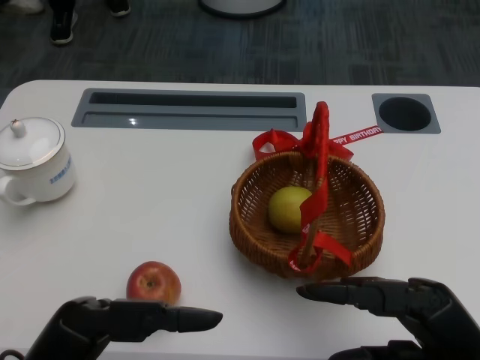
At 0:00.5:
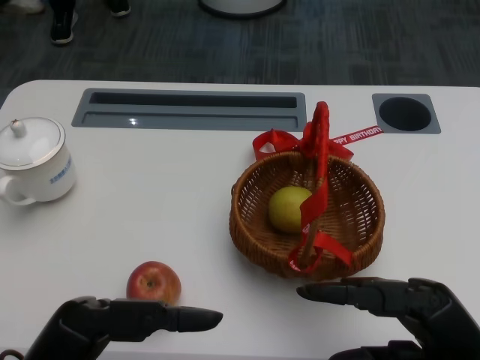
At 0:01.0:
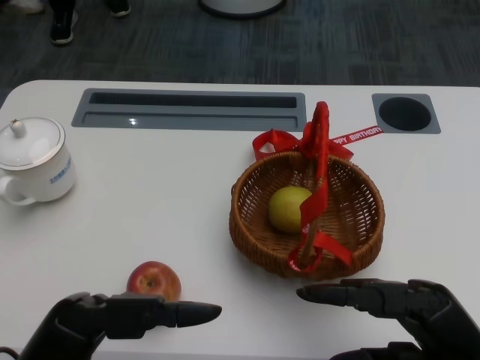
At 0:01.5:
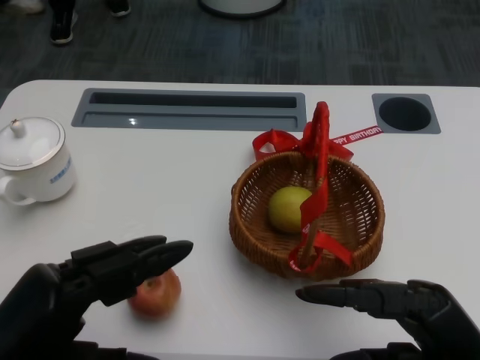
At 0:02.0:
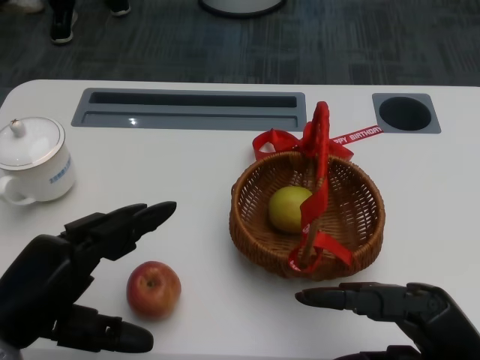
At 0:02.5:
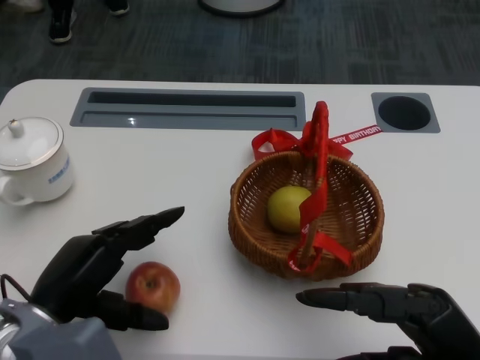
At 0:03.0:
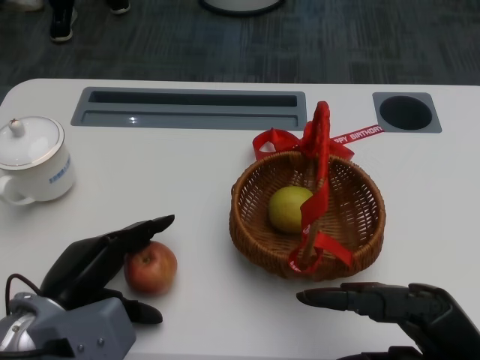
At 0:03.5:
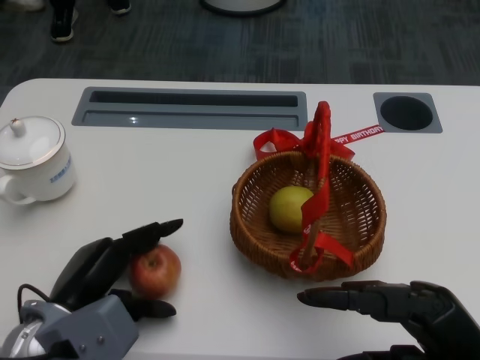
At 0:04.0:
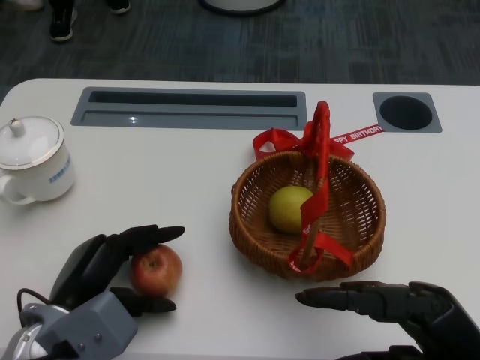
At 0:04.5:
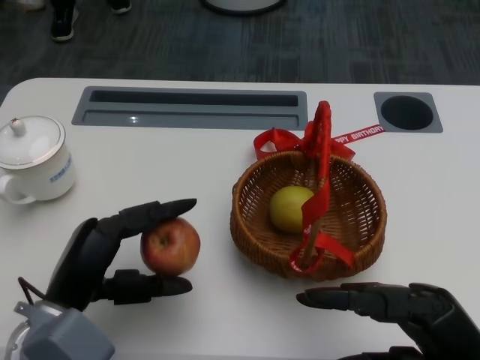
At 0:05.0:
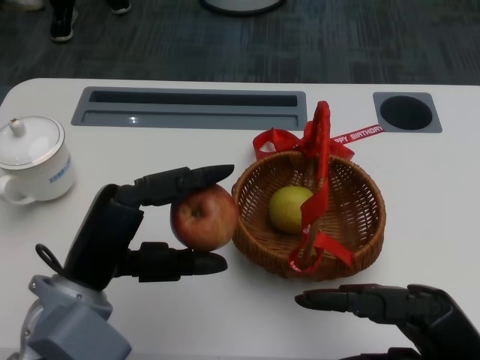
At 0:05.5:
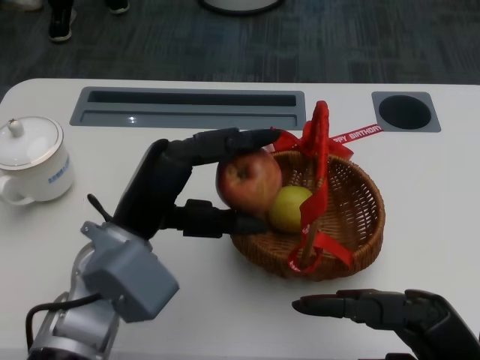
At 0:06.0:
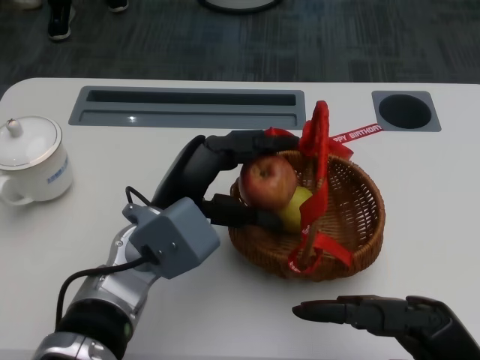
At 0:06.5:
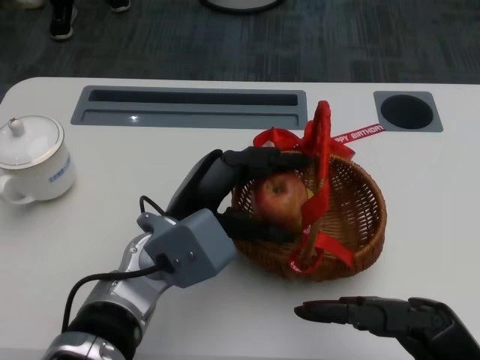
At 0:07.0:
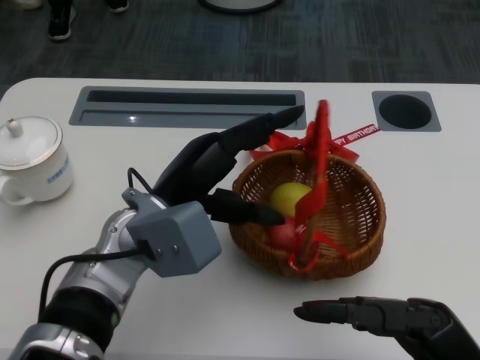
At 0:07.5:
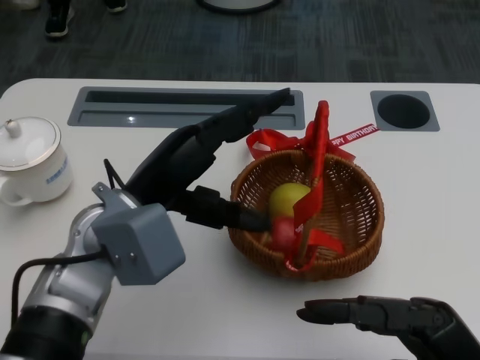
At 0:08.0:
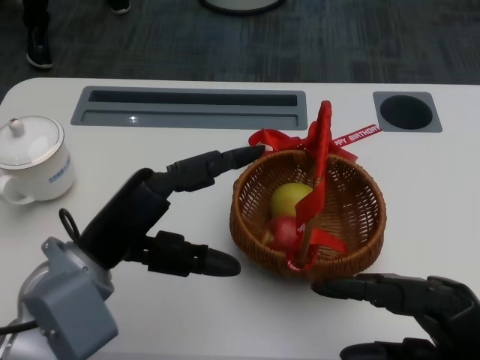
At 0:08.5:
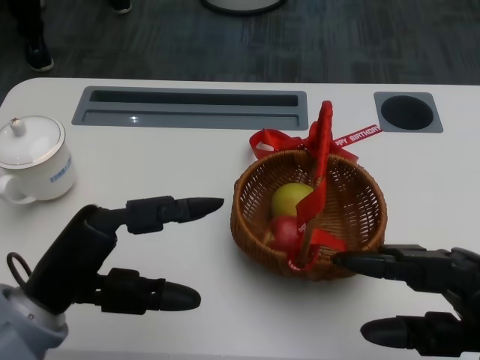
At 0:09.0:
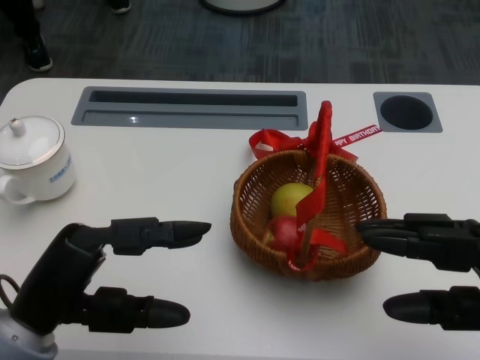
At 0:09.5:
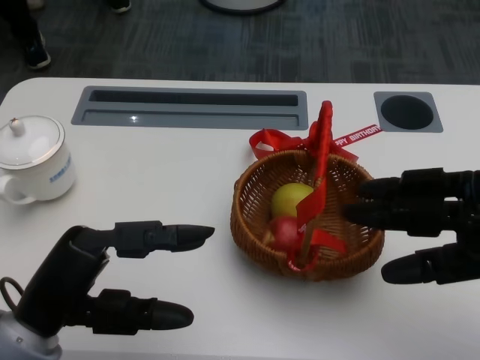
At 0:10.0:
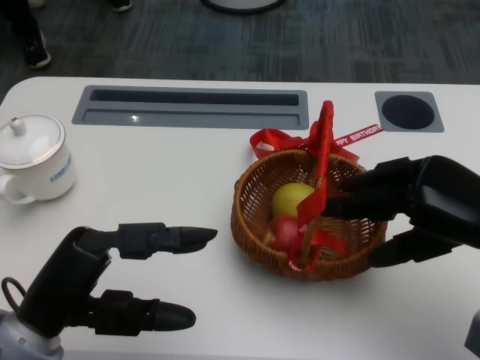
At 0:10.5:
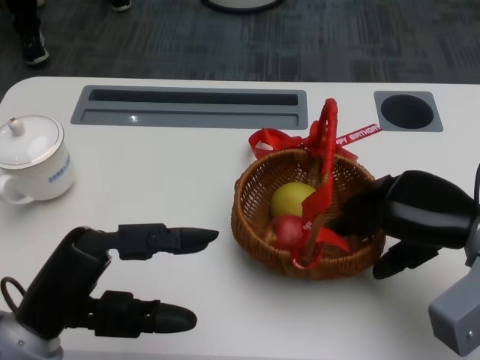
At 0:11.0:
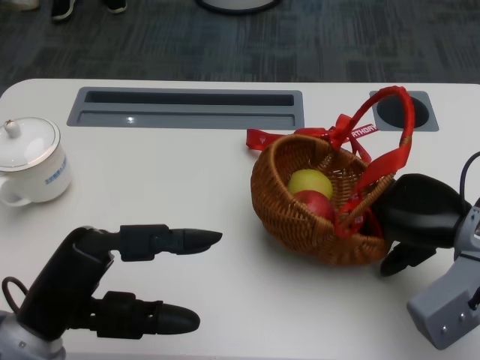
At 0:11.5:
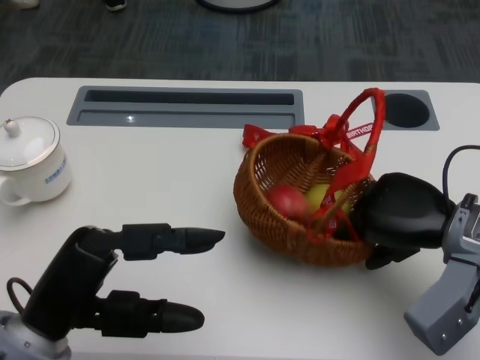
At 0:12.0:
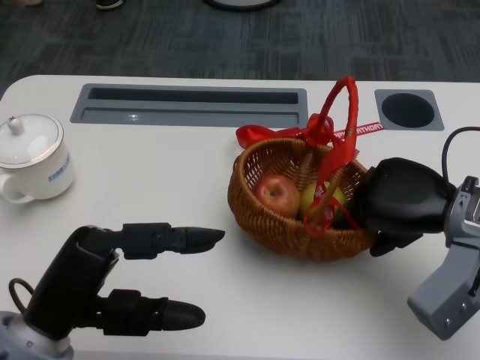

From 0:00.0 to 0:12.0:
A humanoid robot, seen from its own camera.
Step, from 0:01.0 to 0:03.0: Grasp the apple with the left gripper.
Step, from 0:03.5 to 0:05.5: Place the apple into the basket with the left gripper.
Step, from 0:06.0 to 0:08.5: Grasp the basket with the right gripper.
Step, from 0:09.5 to 0:11.5: Move the basket to the front of the table with the right gripper.
From 0:02.0 to 0:04.0: The left hand moves downward and forward, about 10 cm.
From 0:04.0 to 0:06.0: The left hand moves to the right, upward and forward, about 15 cm.
From 0:06.0 to 0:08.0: The left hand goes some 10 cm to the left and backward.
From 0:08.0 to 0:10.0: The right hand travels forward and upward by about 15 cm. The left hand is displaced backward by some 5 cm.
From 0:10.0 to 0:12.0: The right hand changes place by about 5 cm.

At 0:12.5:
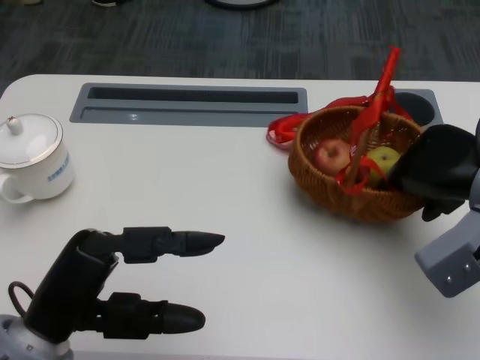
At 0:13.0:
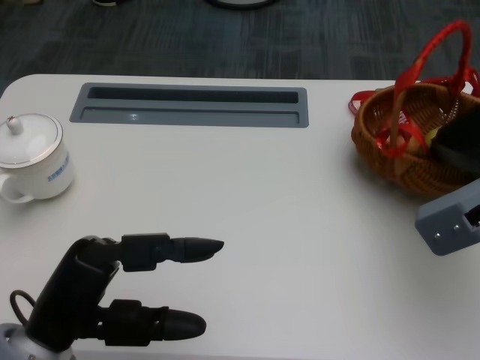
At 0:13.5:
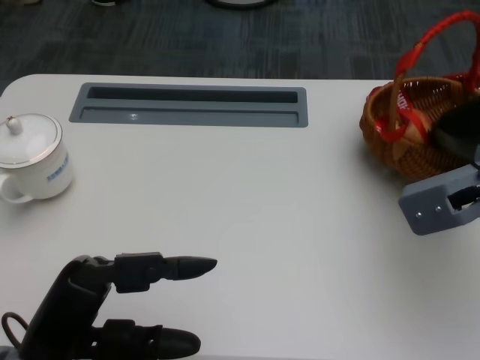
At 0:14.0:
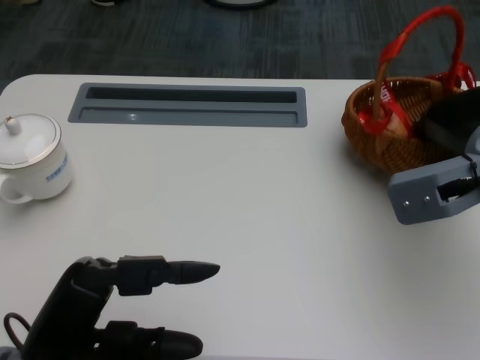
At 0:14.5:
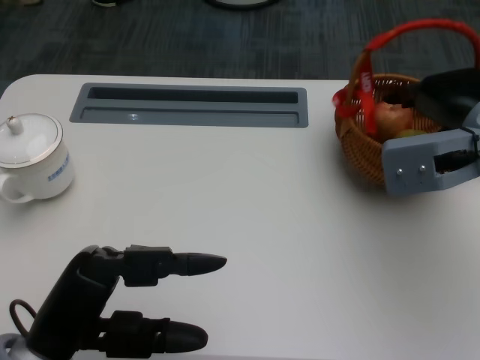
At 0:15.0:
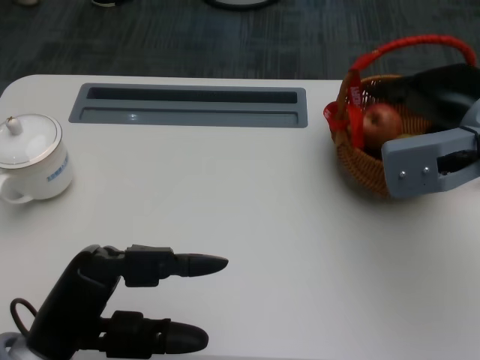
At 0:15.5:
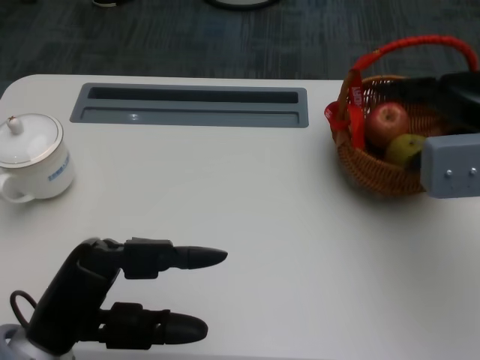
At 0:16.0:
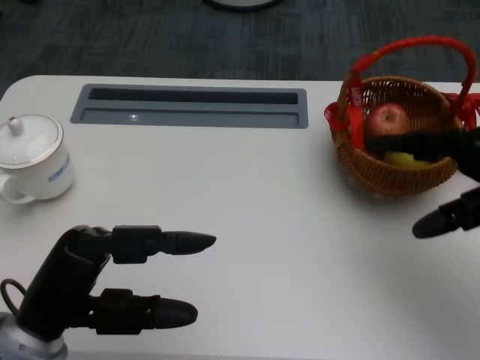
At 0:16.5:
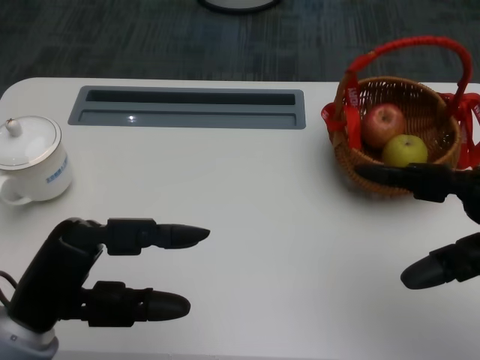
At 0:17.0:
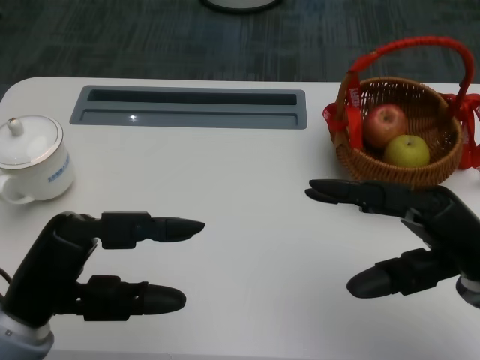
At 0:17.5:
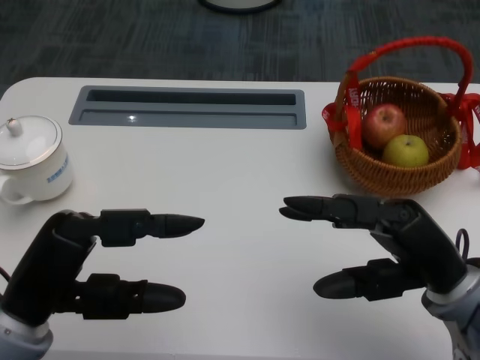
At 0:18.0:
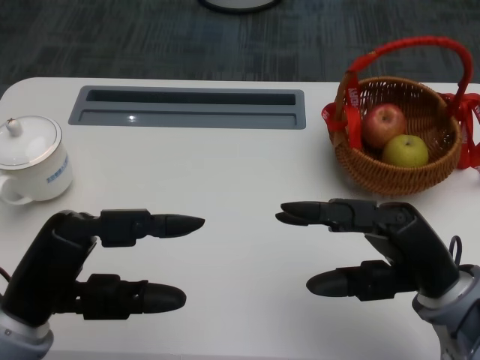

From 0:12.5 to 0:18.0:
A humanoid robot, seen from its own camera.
From 0:12.5 to 0:14.5: The right hand changes place by some 5 cm.
From 0:14.5 to 0:16.0: The right hand goes some 10 cm backward and to the right.
From 0:16.0 to 0:18.0: The right hand shifts about 15 cm to the left, downward and backward.

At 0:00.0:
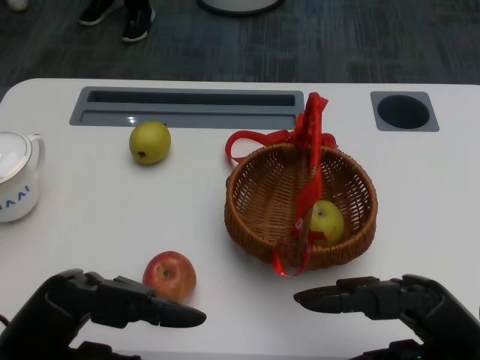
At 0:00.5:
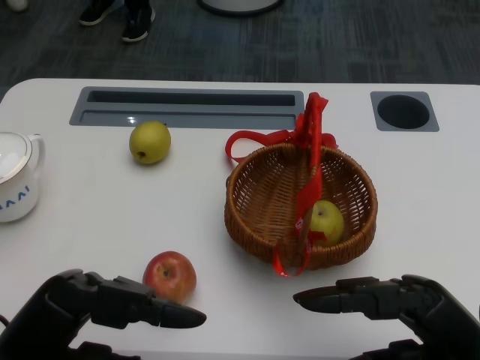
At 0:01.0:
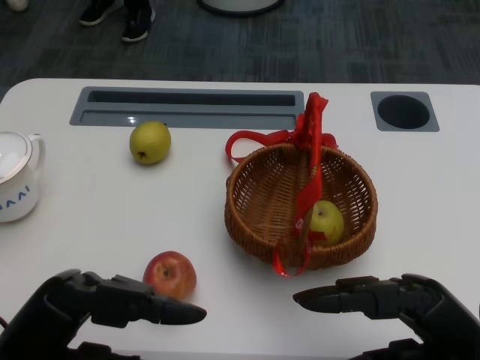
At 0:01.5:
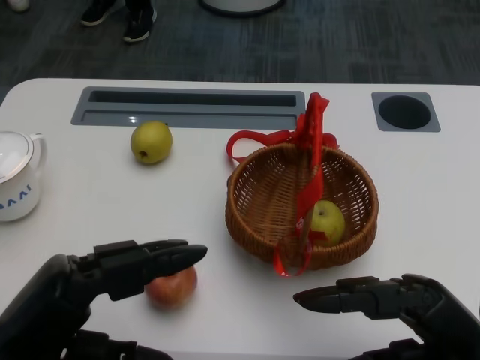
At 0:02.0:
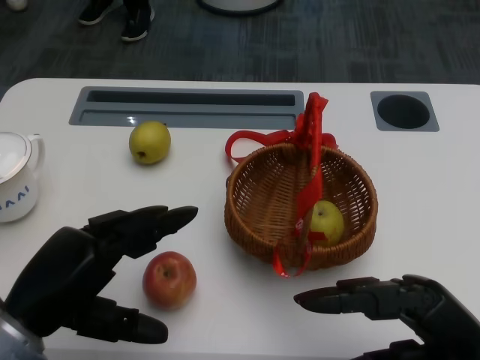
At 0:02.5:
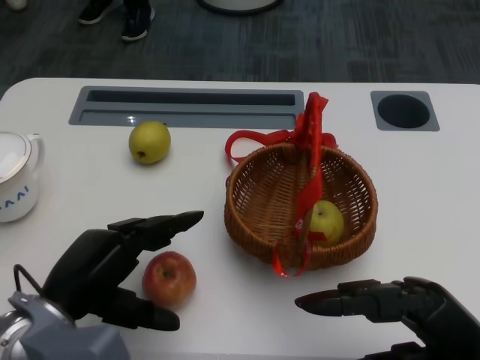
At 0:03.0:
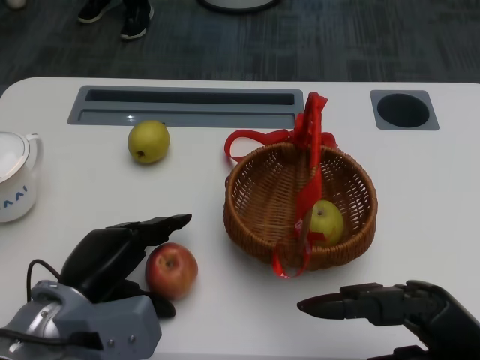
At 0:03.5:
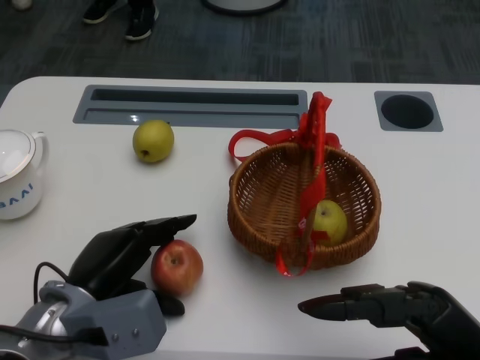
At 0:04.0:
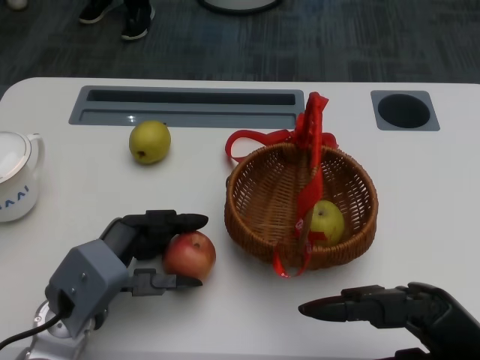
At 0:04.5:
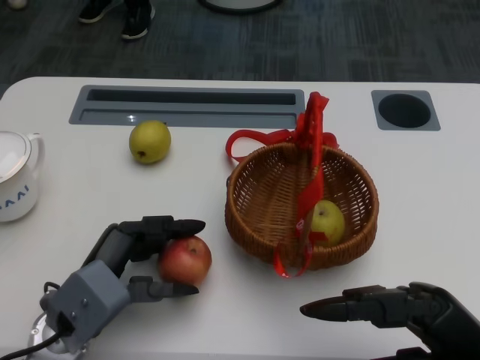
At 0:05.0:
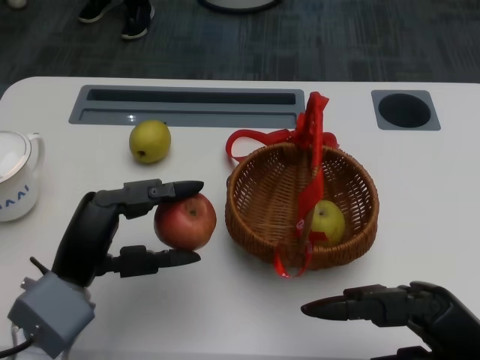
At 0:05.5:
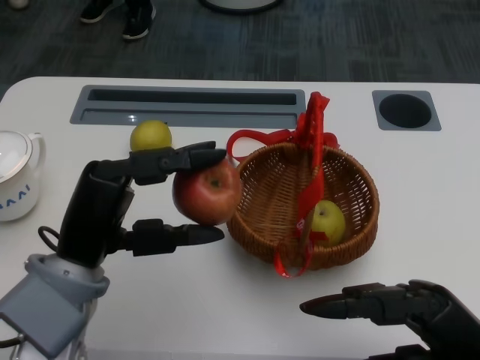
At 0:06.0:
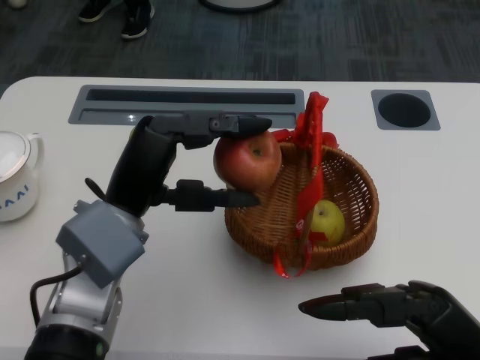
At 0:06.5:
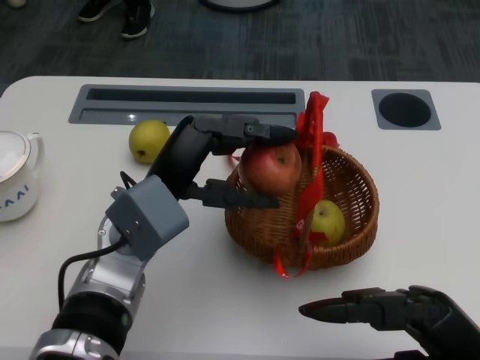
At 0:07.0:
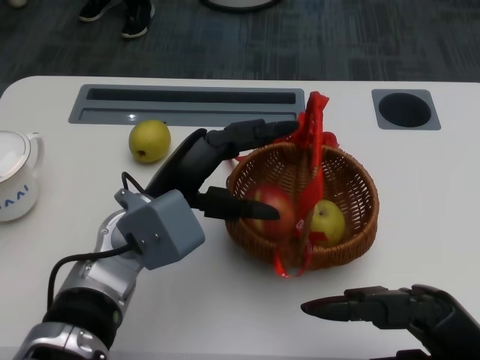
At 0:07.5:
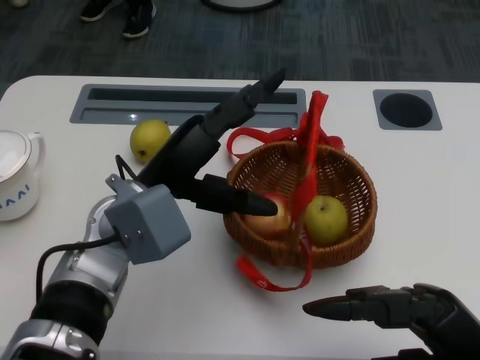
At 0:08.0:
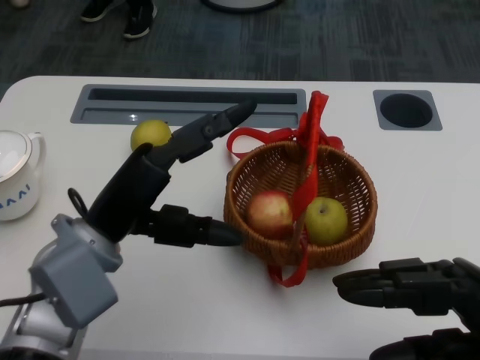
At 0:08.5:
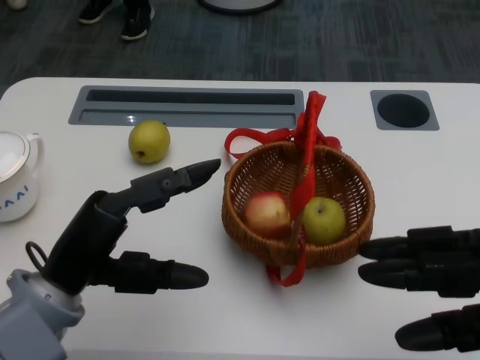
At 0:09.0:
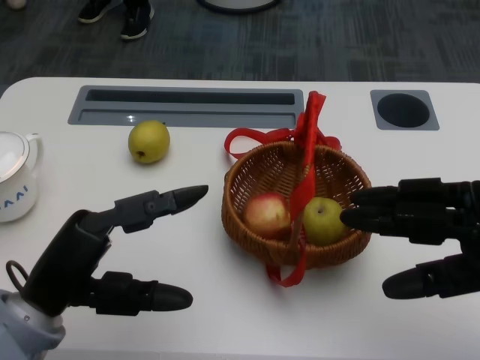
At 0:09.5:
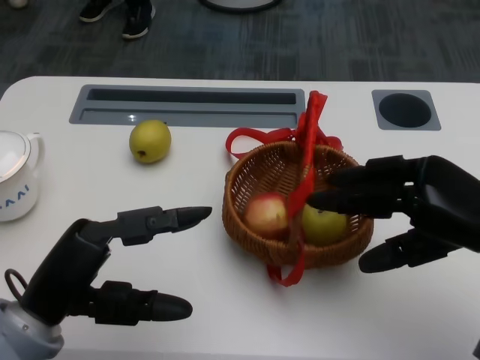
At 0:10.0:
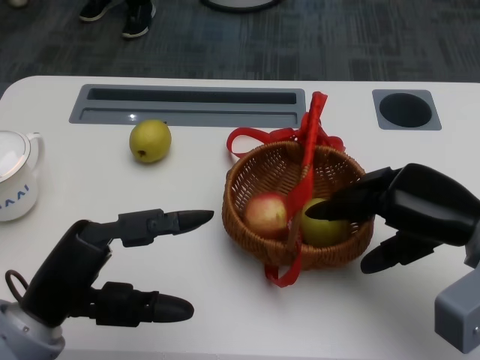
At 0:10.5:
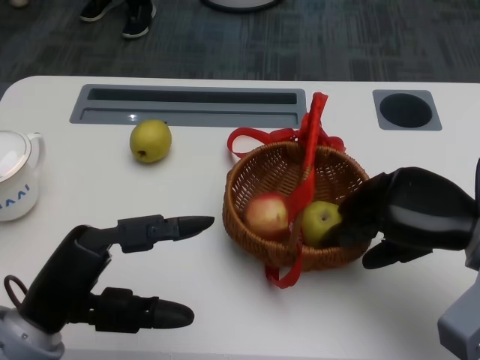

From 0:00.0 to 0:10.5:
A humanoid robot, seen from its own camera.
Step, from 0:01.0 to 0:03.0: Grasp the apple with the left gripper.
Step, from 0:03.5 to 0:05.5: Place the apple into the basket with the left gripper.
Step, from 0:06.0 to 0:08.5: Grasp the basket with the right gripper.
From 0:02.0 to 0:04.0: The left hand moves downward and forward, roughly 10 cm.
From 0:04.0 to 0:06.5: The left hand goes approximately 10 cm upward and to the right.
From 0:06.5 to 0:08.5: The left hand shifts approximately 10 cm to the left and backward. Meanwhile the right hand travels upward by about 5 cm.
From 0:08.5 to 0:10.5: The right hand shifts about 10 cm forward.
